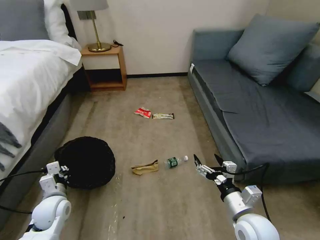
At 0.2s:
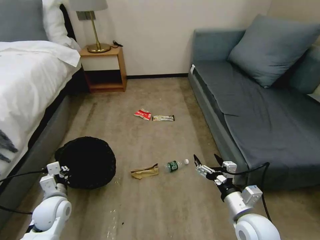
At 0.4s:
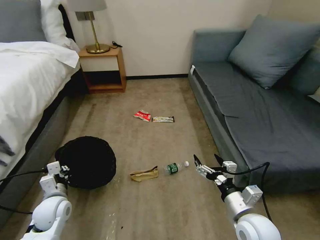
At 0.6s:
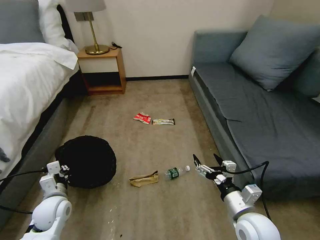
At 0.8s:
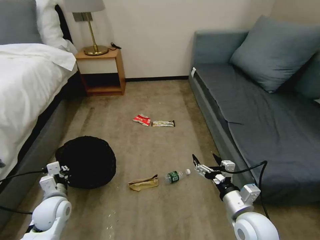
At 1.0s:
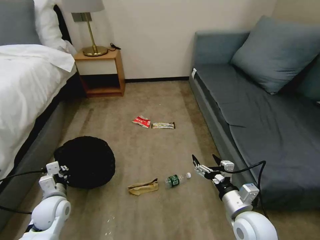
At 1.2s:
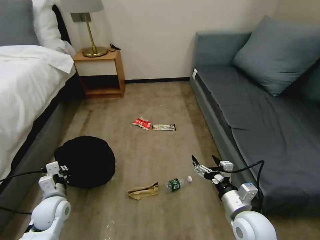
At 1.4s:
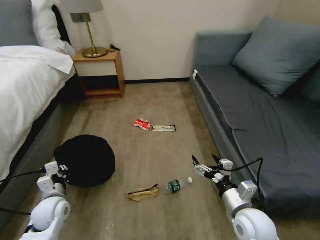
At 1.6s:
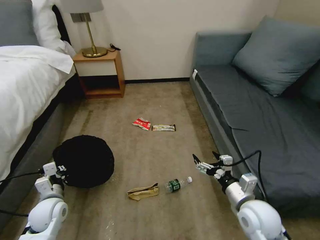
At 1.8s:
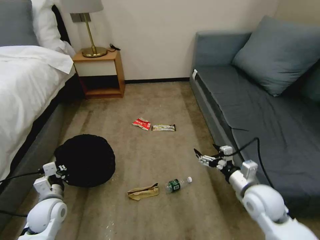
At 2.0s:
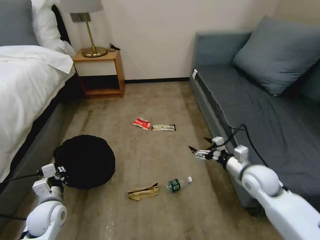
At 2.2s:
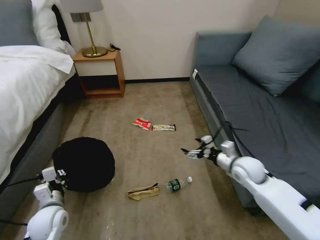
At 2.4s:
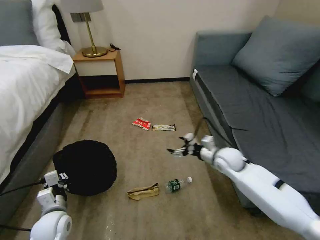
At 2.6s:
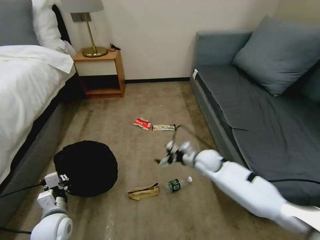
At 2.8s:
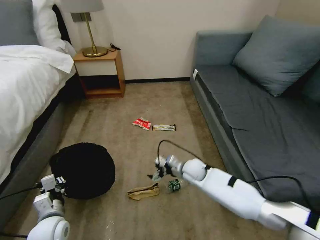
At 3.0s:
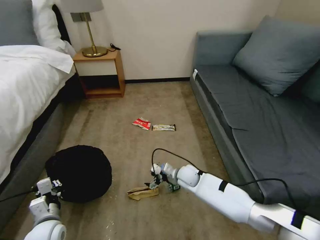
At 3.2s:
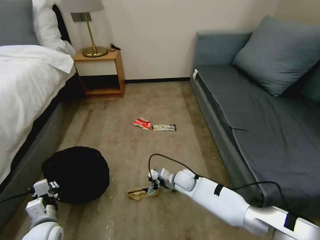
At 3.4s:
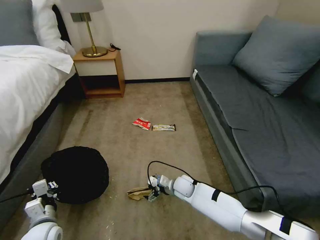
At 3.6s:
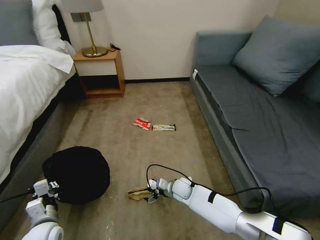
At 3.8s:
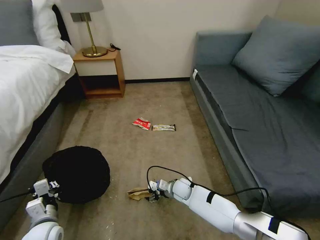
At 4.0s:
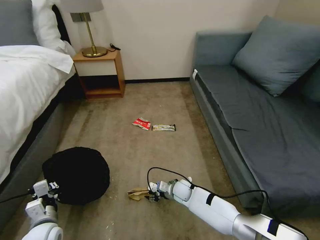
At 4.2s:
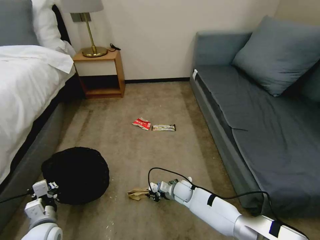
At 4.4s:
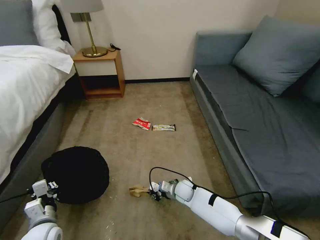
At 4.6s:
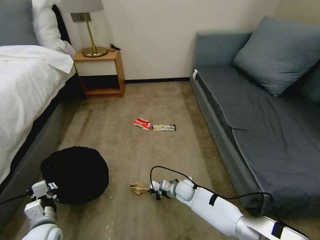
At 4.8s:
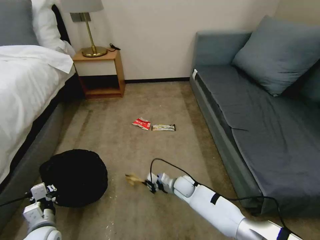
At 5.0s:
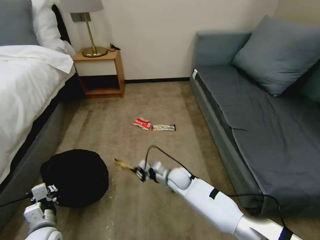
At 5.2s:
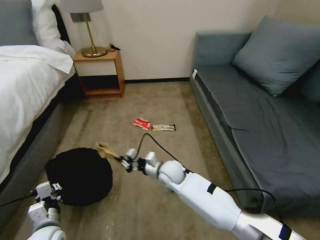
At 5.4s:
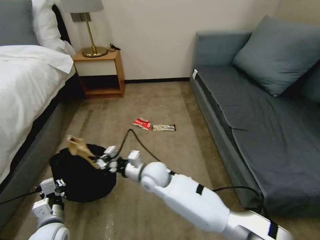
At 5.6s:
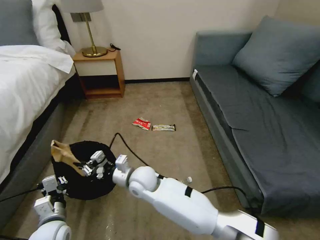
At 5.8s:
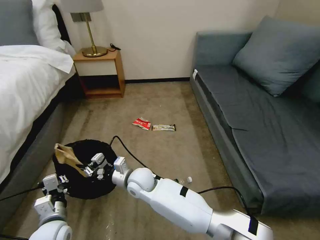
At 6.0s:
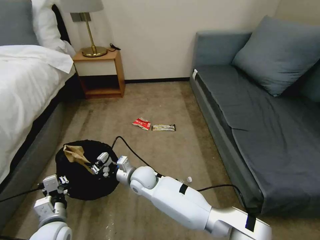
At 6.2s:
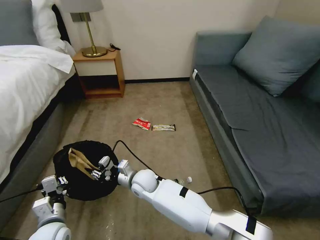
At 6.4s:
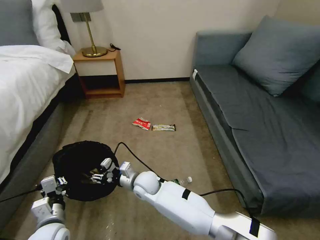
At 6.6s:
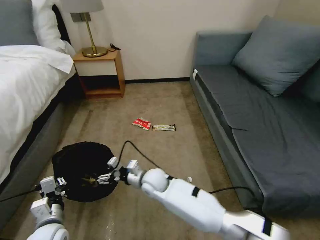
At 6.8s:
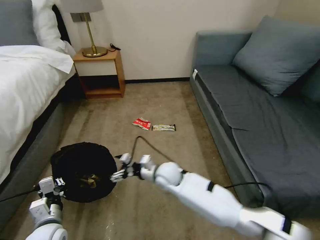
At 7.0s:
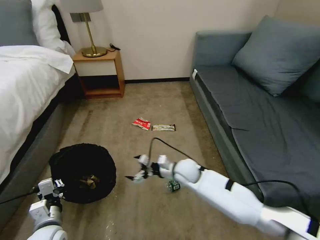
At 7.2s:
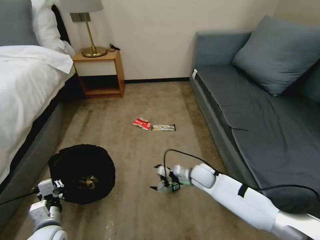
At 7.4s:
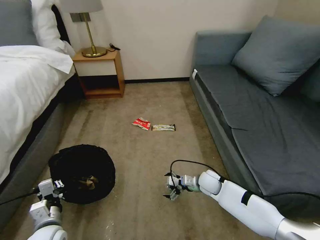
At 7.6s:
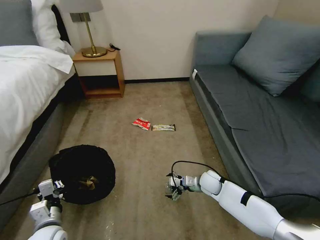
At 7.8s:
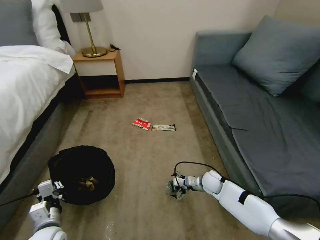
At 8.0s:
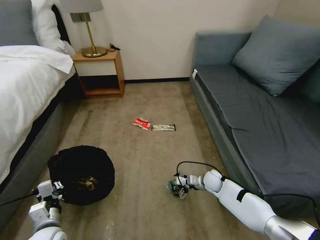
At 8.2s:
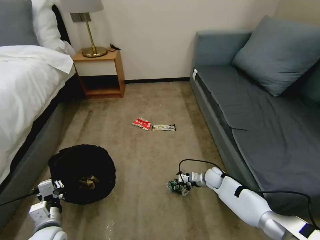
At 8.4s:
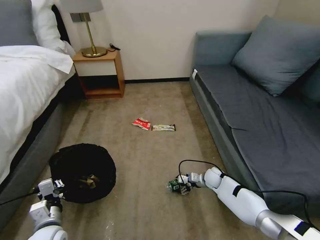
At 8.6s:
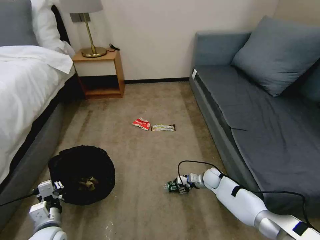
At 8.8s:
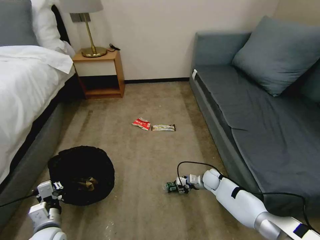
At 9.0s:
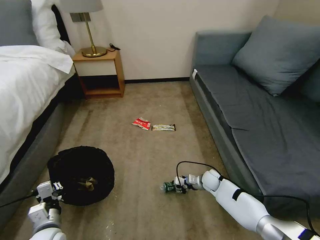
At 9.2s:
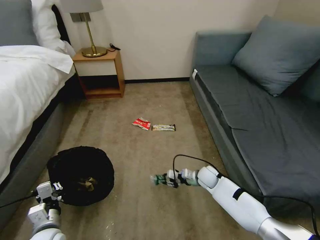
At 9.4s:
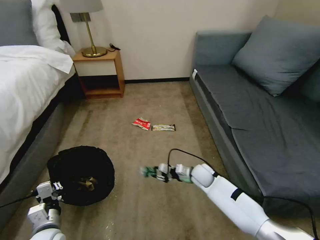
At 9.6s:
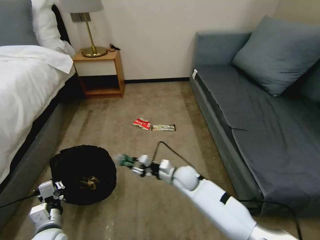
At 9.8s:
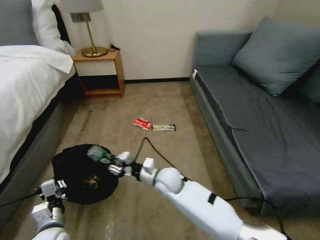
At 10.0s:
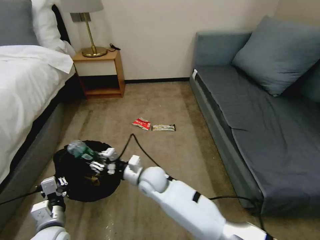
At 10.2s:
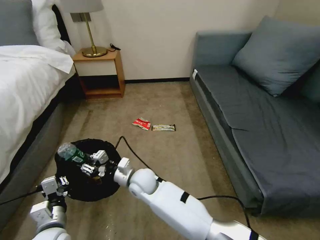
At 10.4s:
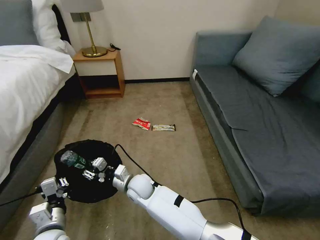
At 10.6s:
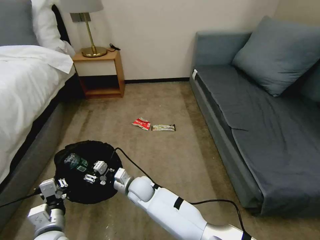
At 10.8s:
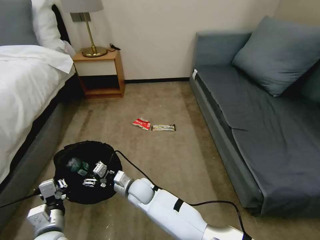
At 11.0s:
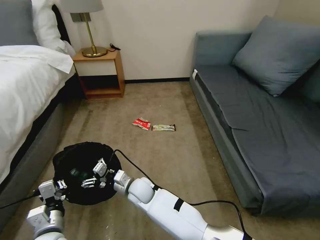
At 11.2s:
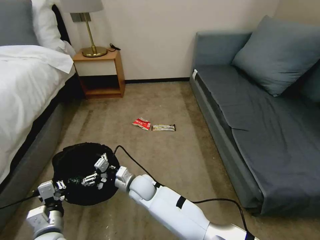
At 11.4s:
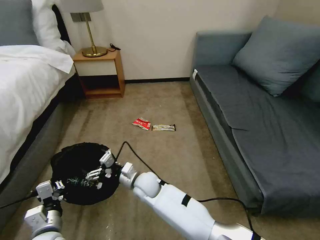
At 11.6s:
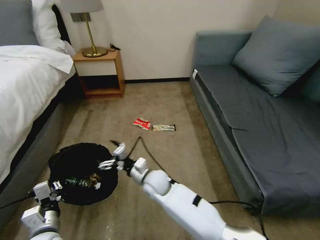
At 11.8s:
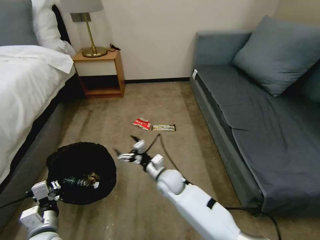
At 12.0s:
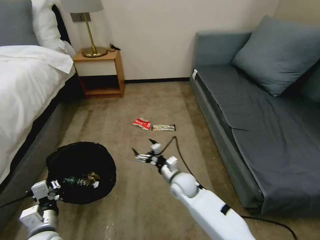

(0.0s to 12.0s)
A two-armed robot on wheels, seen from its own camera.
Task of the whole recording: Pick up the trash bin, then pick up the garbage on the floor and place it into the trash bin.
1.6s - 3.0s: The right gripper moves forward, to the left and downward, roughly 25 cm, while the left gripper goes some 5 cm backward.
3.0s - 4.4s: The right gripper moves downward, about 10 cm, and closes.
4.4s - 6.0s: The right gripper travels to the left and upward by approximately 25 cm.
6.0s - 7.6s: The right gripper shifts roughly 30 cm to the right, and opens.
7.6s - 9.0s: The right gripper ends up about 5 cm from where it was, and closes its fingers.
9.0s - 10.4s: The left gripper ends up some 5 cm from where it was. Meanwhile the right gripper is displaced to the left by roughly 35 cm.
10.4s - 12.0s: The right gripper is displaced to the right by some 15 cm, and opens.

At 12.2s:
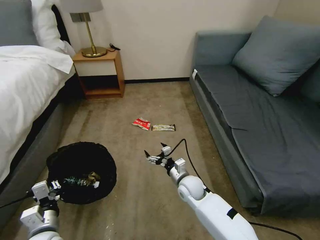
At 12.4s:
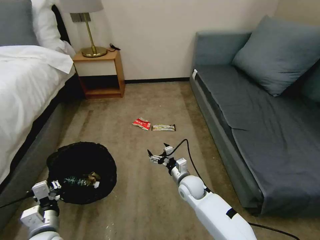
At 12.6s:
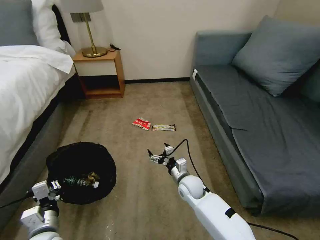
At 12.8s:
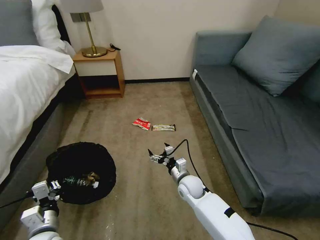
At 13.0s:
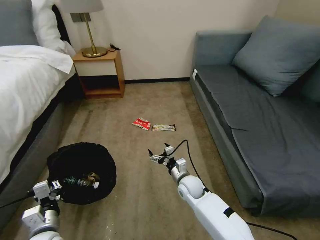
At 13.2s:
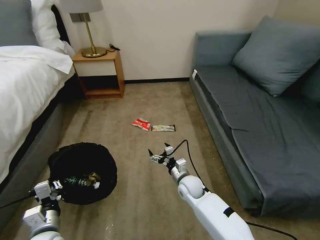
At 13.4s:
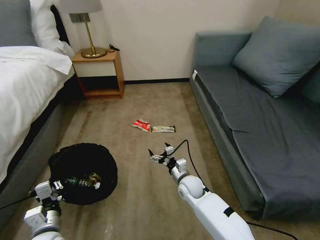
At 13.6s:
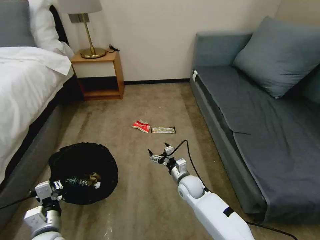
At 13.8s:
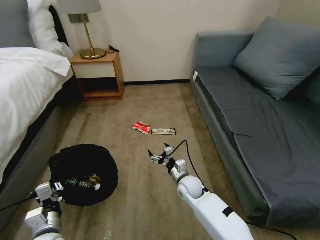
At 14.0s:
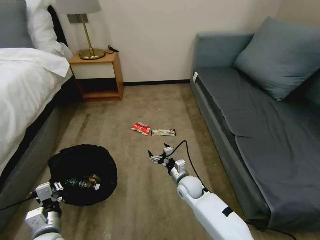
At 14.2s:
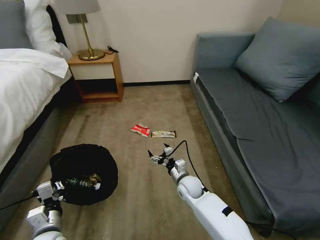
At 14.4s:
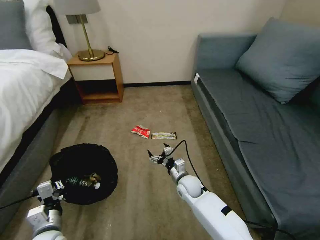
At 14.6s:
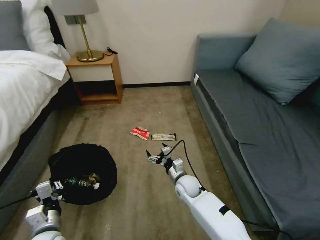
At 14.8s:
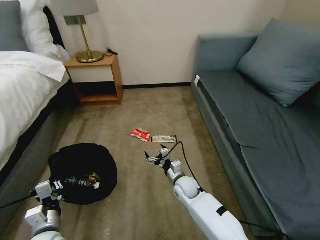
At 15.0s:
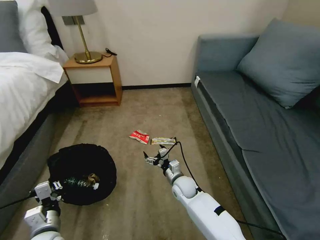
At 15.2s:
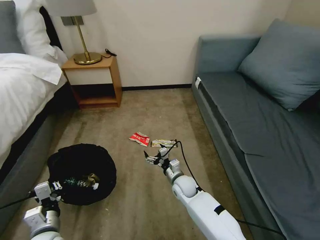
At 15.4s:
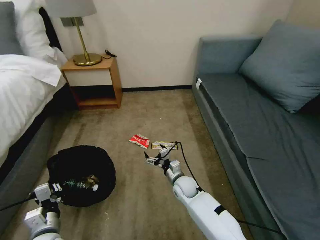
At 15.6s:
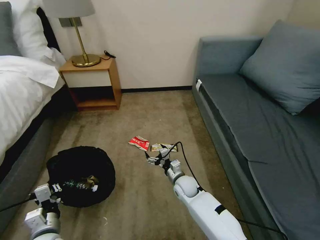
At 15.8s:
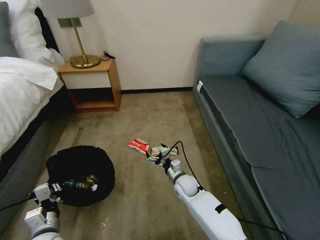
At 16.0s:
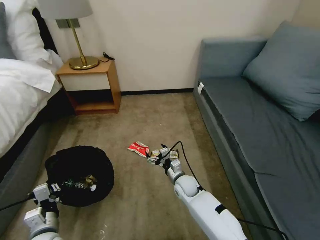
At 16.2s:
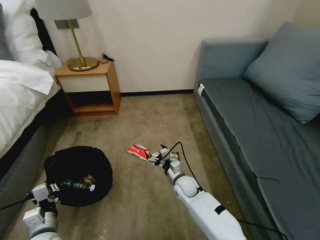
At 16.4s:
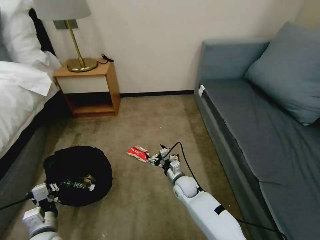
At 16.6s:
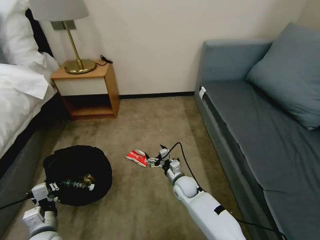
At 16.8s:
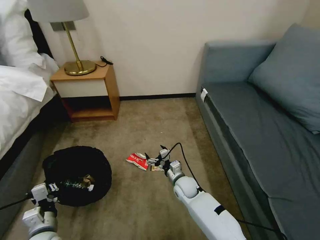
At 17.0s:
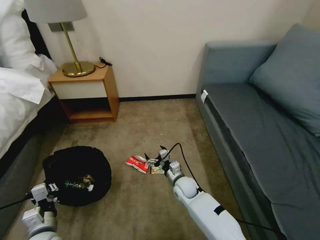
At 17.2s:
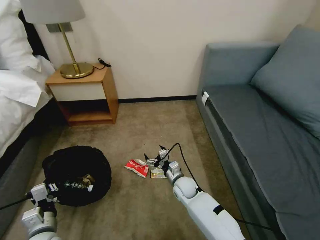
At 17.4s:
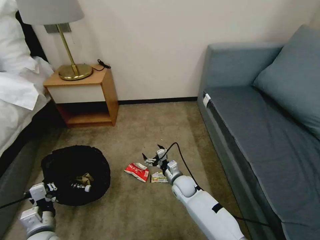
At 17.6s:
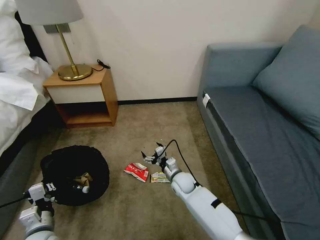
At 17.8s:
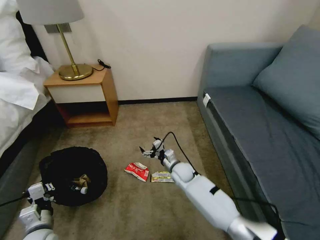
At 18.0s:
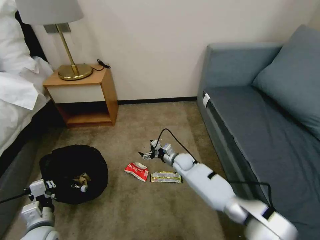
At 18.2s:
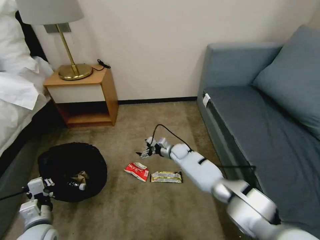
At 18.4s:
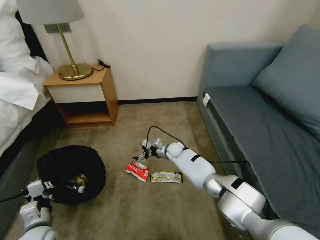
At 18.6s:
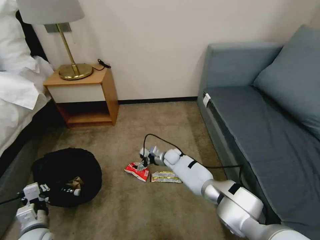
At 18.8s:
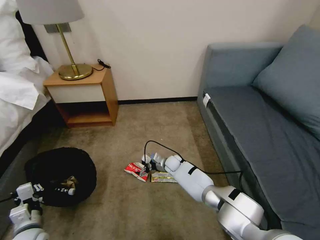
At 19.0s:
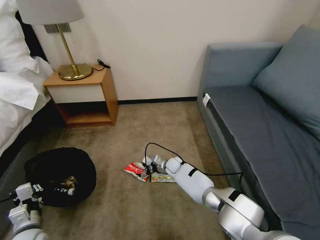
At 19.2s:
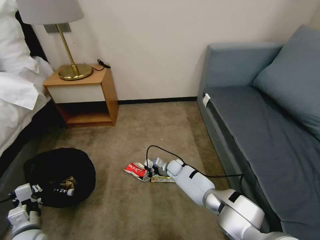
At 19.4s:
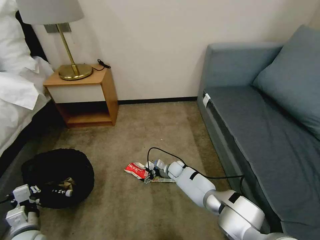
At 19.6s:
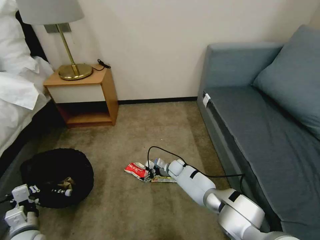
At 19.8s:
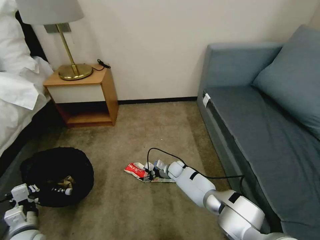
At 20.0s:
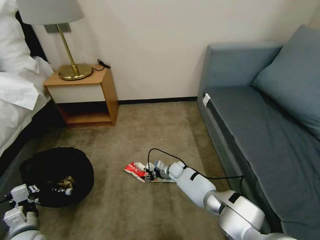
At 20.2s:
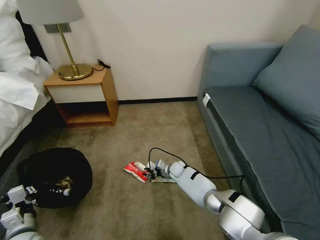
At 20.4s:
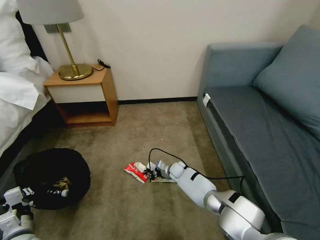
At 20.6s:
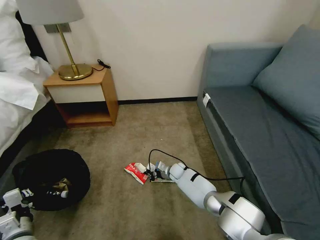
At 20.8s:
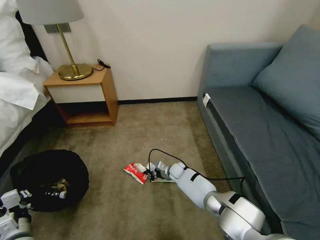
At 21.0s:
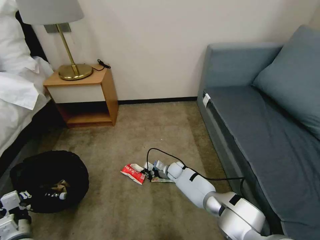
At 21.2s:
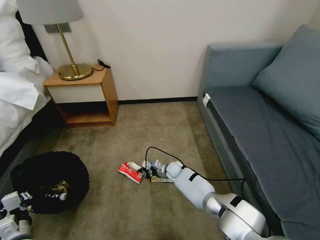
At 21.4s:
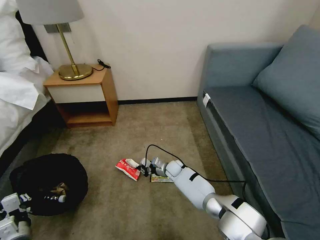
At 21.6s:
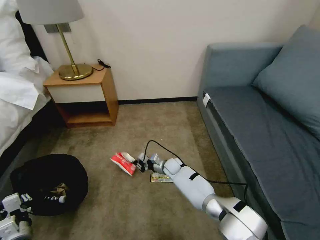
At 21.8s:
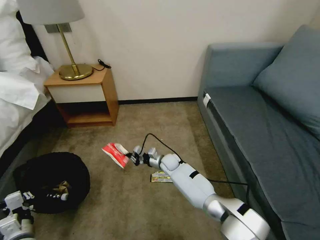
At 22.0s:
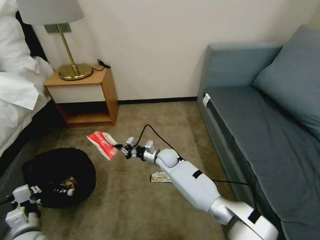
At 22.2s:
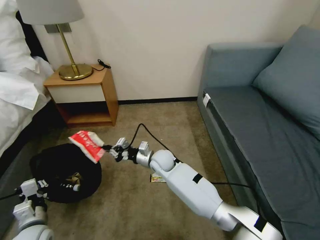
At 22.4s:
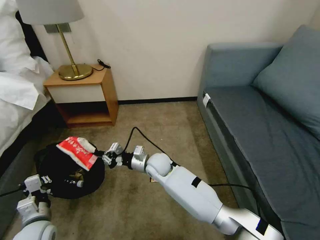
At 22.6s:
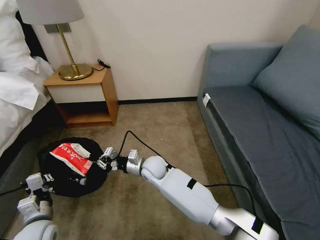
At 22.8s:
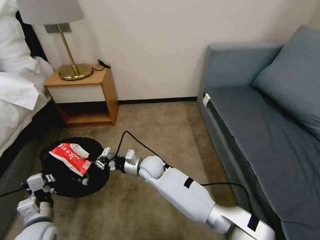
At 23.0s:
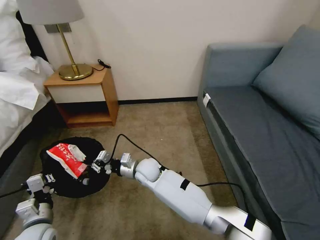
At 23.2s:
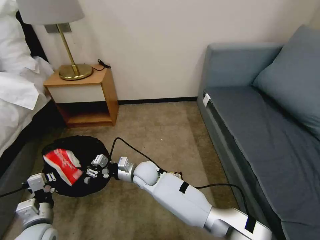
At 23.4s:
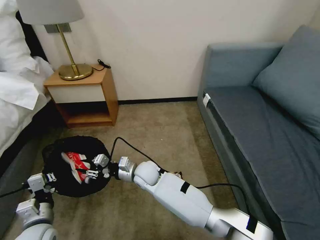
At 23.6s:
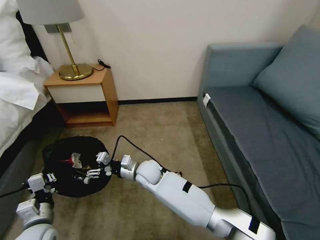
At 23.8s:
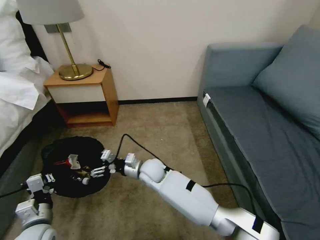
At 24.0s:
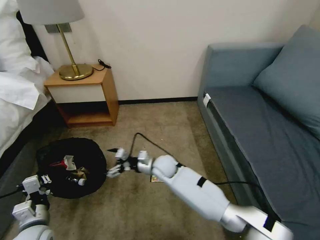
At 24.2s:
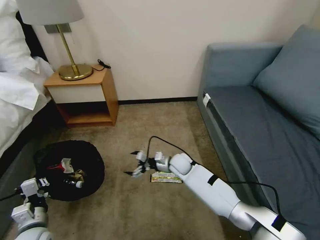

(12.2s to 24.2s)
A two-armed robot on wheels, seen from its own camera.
Task of the whole recording: Pick up the trash bin, then pick up the garbage on the floor and place it into the trash bin.
12.2s - 13.8s: There are only small adjustments of the grippers.
16.6s - 18.2s: The right gripper goes about 15 cm forward.
18.2s - 19.8s: The right gripper is displaced downward by some 10 cm.
19.8s - 21.2s: The right gripper closes up.
21.2s - 22.6s: The right gripper is displaced upward, to the left and backward by roughly 20 cm; the left gripper moves some 5 cm.
22.6s - 24.2s: The right gripper moves to the right, approximately 10 cm, and opens.
